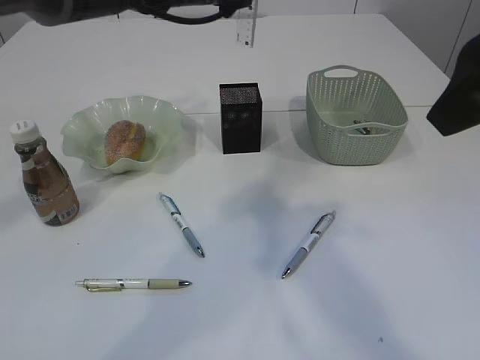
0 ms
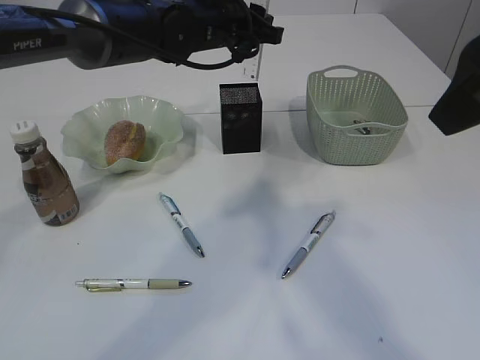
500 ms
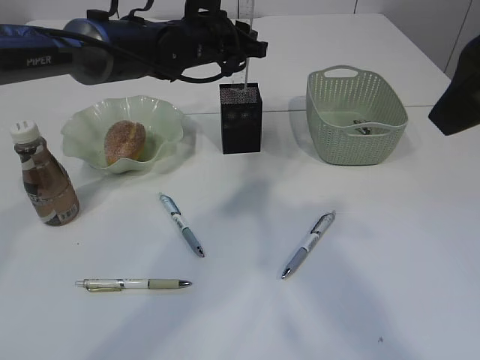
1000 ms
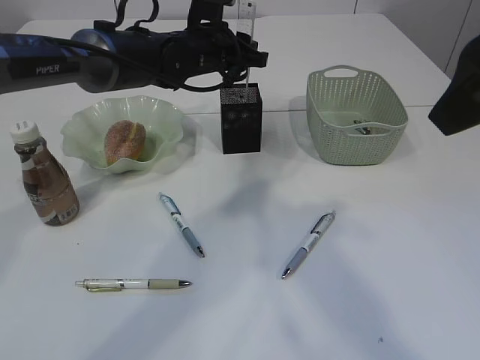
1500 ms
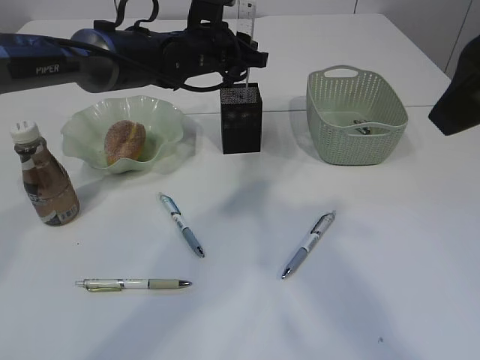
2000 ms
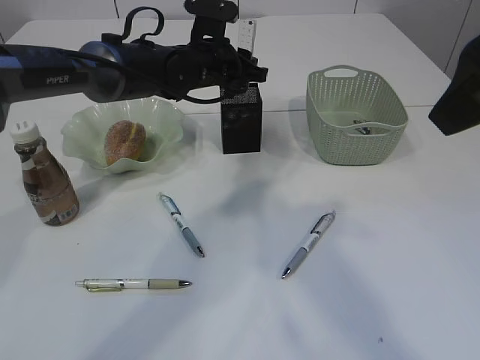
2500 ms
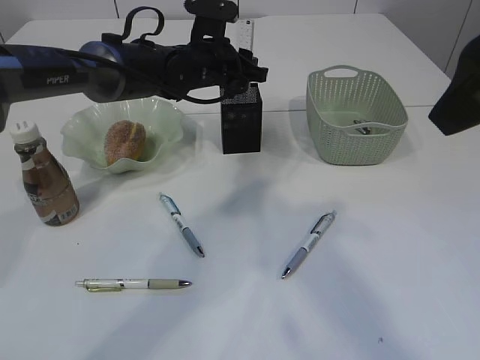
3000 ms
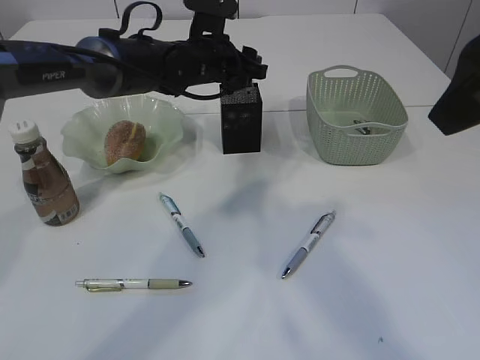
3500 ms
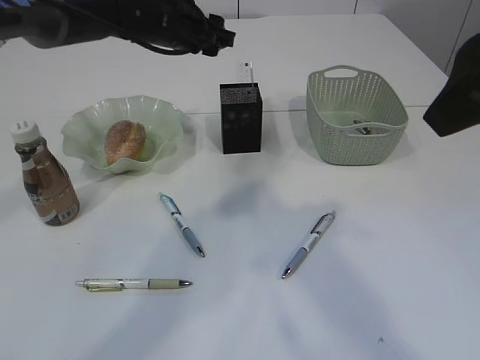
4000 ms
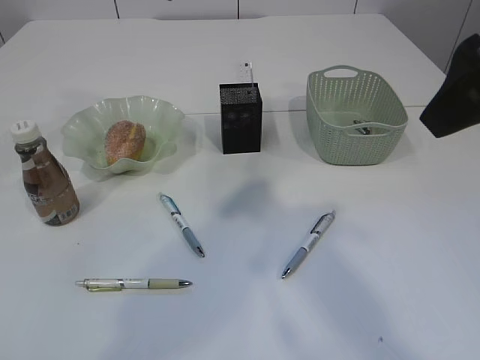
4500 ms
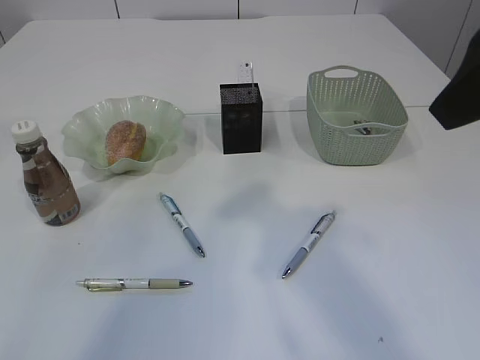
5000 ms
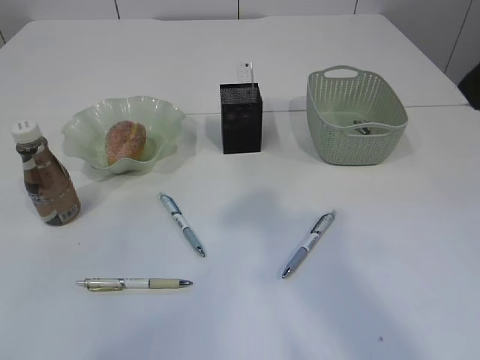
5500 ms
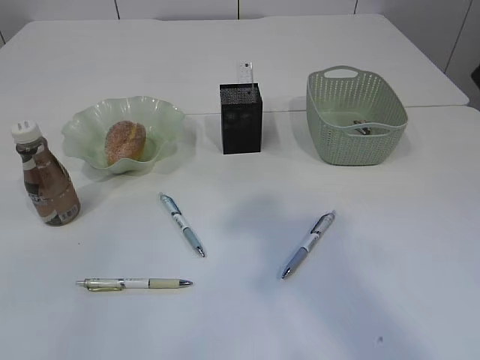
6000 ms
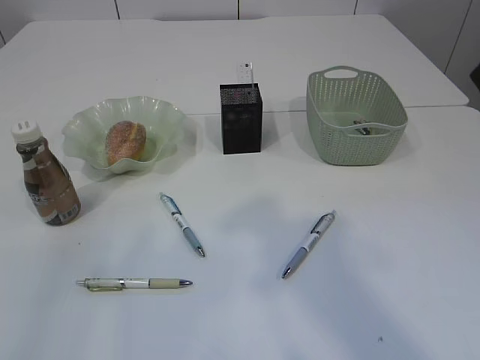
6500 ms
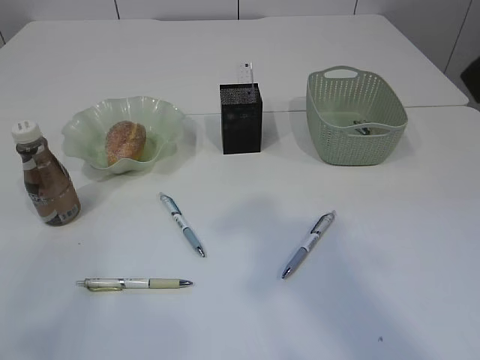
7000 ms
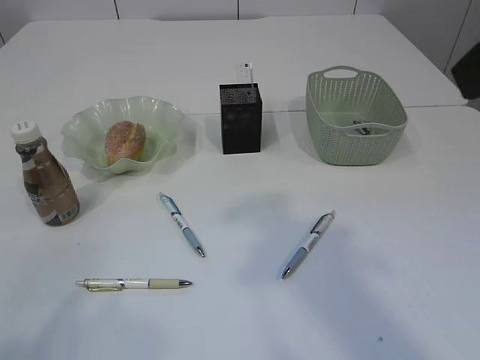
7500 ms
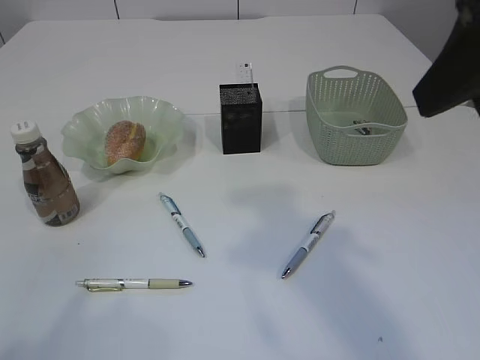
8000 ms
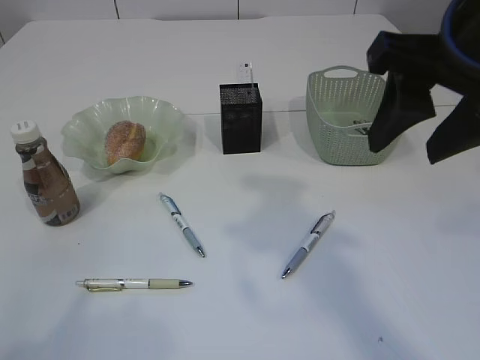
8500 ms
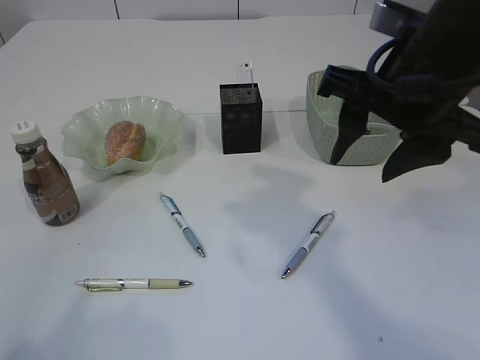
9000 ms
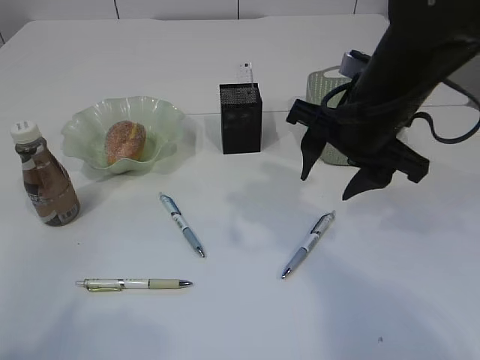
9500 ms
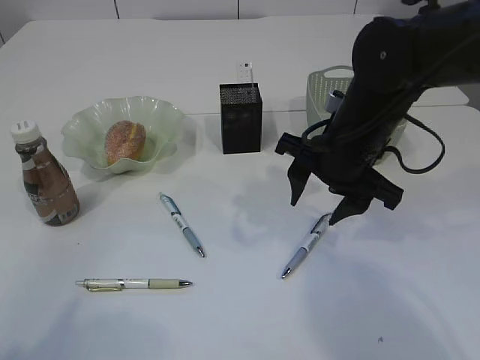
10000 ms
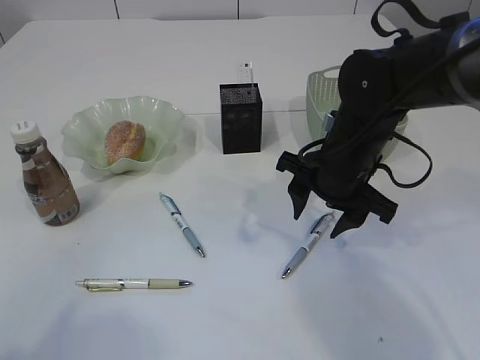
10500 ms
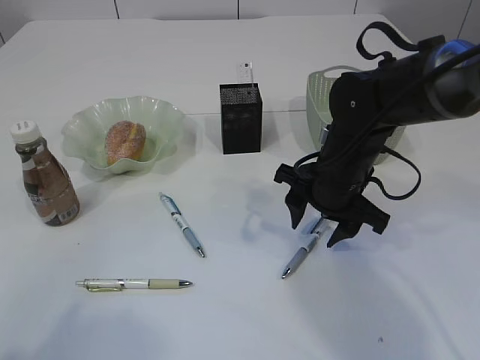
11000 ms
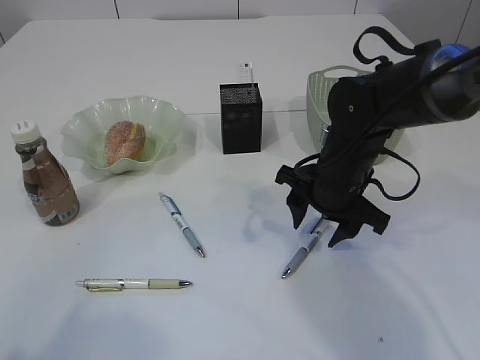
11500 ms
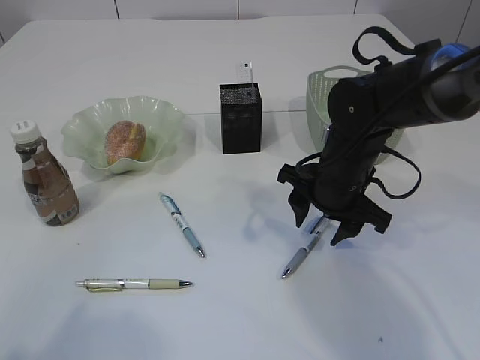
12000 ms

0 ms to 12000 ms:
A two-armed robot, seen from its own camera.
Step, 0 ms to 3500 ms: Place the ruler into the pen holder.
0 ms to 2000 ms: The left gripper heads downward, covering roughly 10 cm.
2000 ms to 4000 ms: The left gripper shifts by some 5 cm, and opens its fingers.
4000 ms to 6000 ms: The left gripper is displaced backward, upward and to the left by some 40 cm; the right gripper moves approximately 5 cm.
8000 ms to 10000 ms: The right gripper moves downward and forward, about 25 cm.
10000 ms to 12000 ms: The right gripper moves downward, some 5 cm.

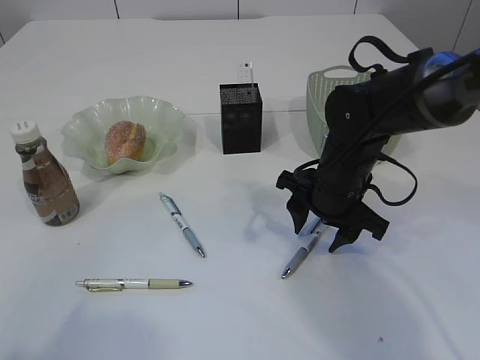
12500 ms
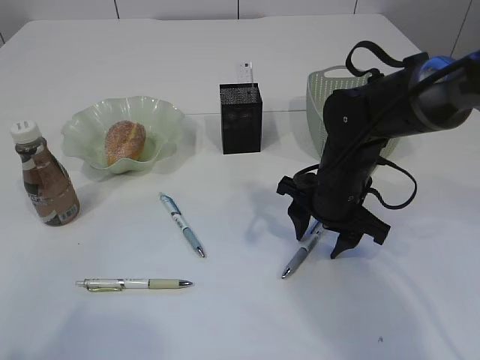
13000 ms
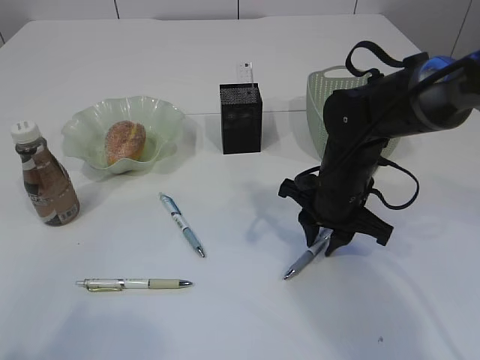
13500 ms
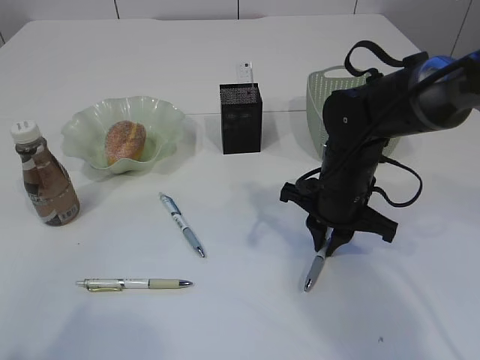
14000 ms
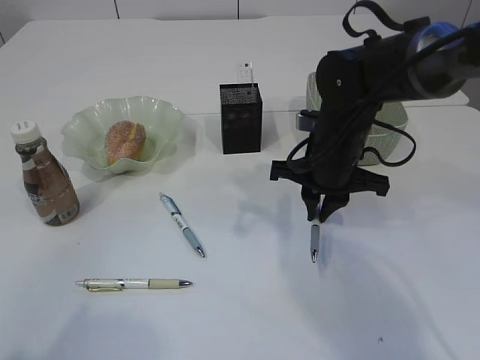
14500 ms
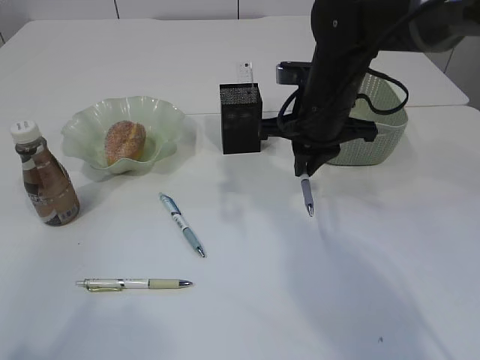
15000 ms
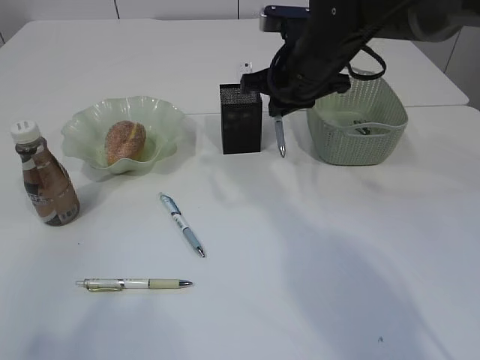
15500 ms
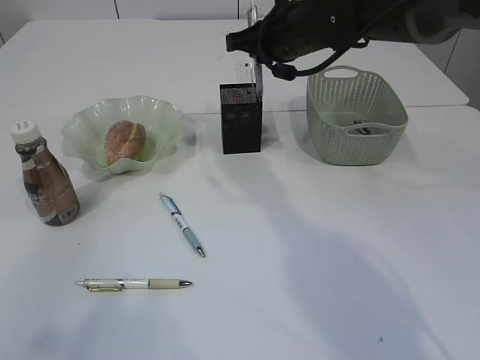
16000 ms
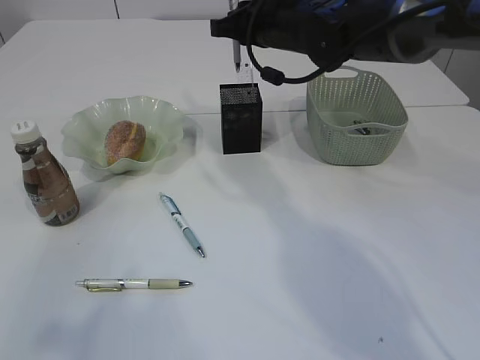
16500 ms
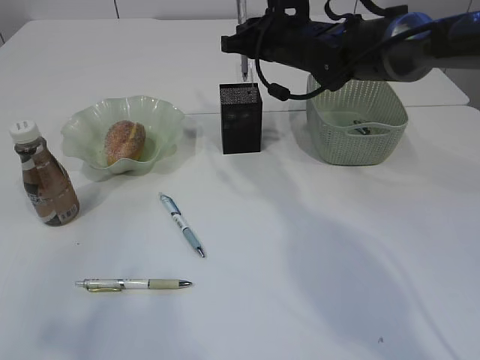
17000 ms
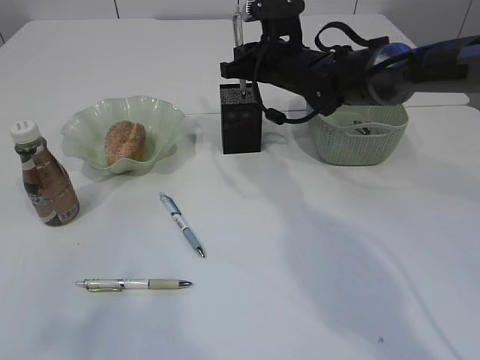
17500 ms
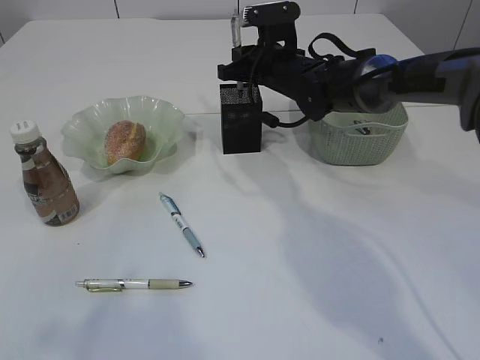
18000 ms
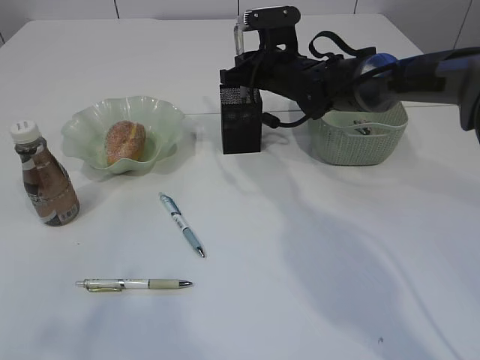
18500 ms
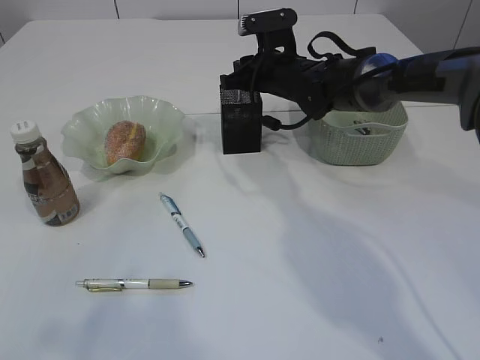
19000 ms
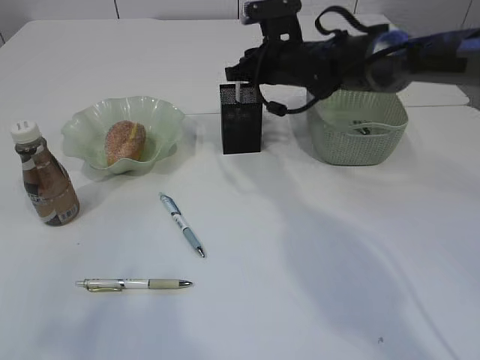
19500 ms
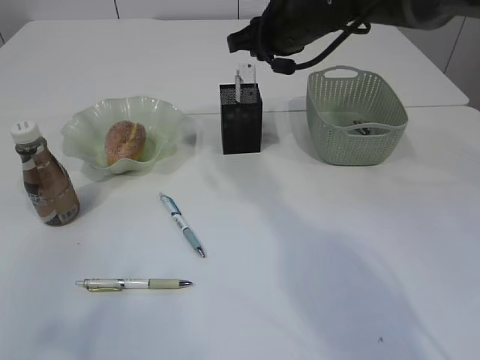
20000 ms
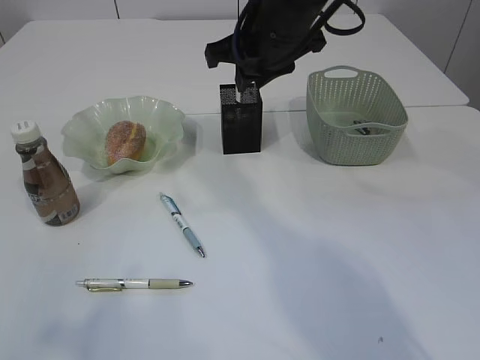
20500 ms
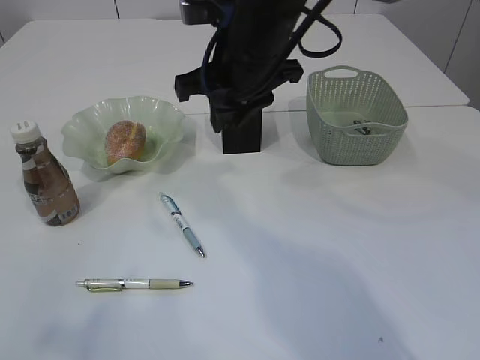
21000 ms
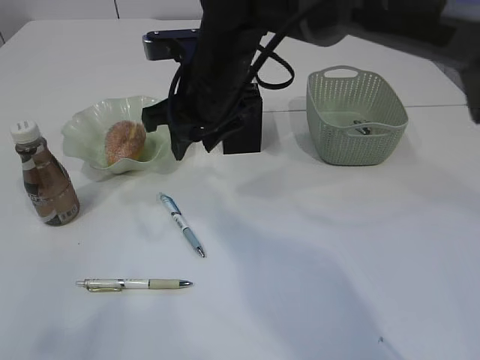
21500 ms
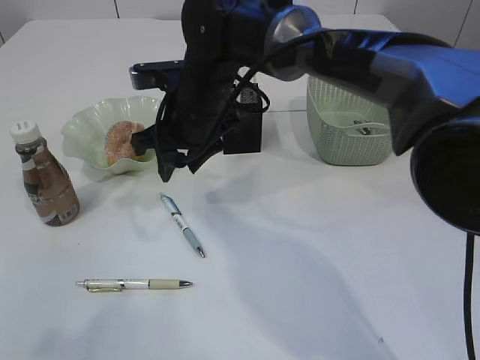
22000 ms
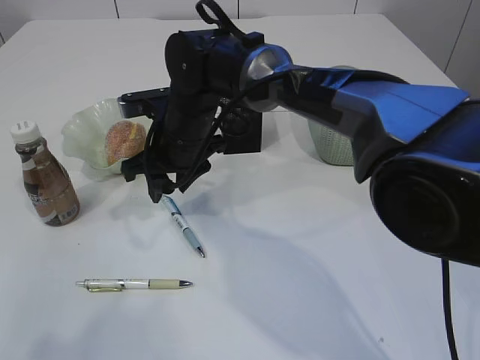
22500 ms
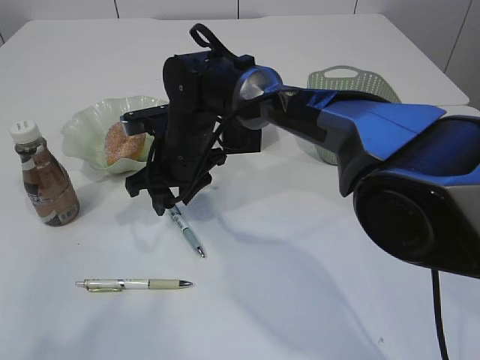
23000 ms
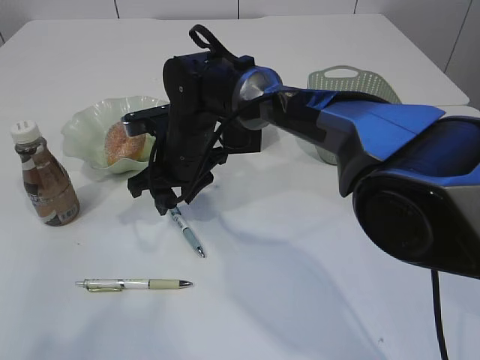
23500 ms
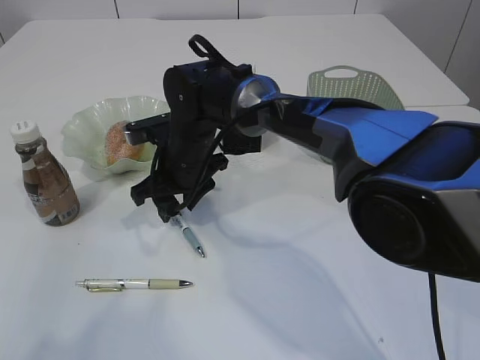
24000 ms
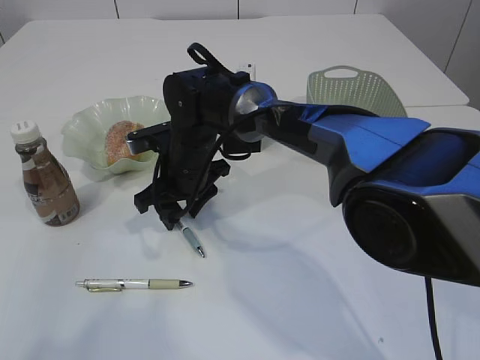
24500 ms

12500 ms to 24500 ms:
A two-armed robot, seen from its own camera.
Step, 12500 ms to 15000 ms: Pick up the pen with right arm.
Step, 15500 ms to 19500 ms: Place the pen into the pen holder.
12500 ms to 14500 ms: The right gripper closes.
14500 ms to 16500 ms: The right gripper is displaced upward and forward by approximately 15 cm.
16500 ms to 18500 ms: The right gripper travels downward by roughly 10 cm.
18500 ms to 20500 ms: The right gripper is displaced upward and backward by approximately 15 cm.
20500 ms to 22500 ms: The right gripper travels downward and to the left by approximately 15 cm.
22500 ms to 24500 ms: The right gripper goes about 5 cm downward.

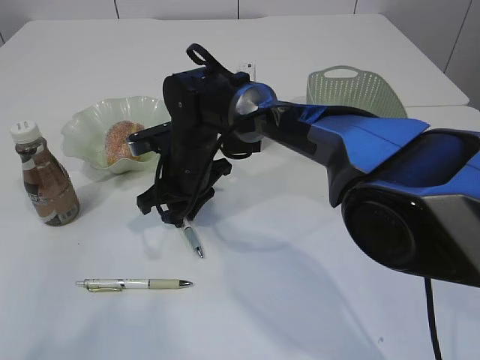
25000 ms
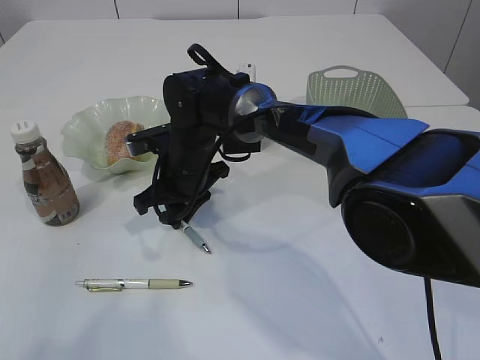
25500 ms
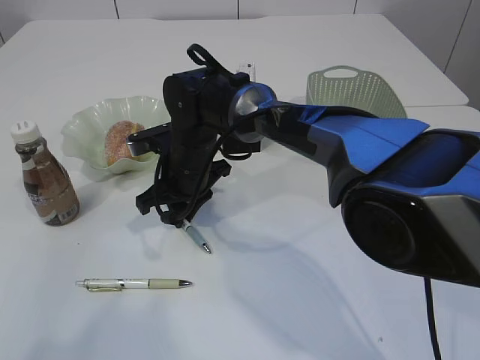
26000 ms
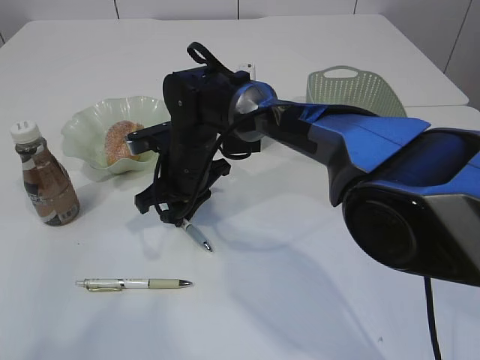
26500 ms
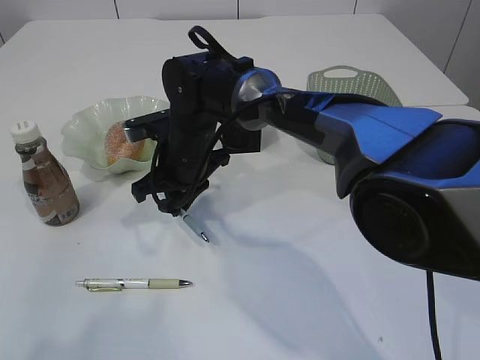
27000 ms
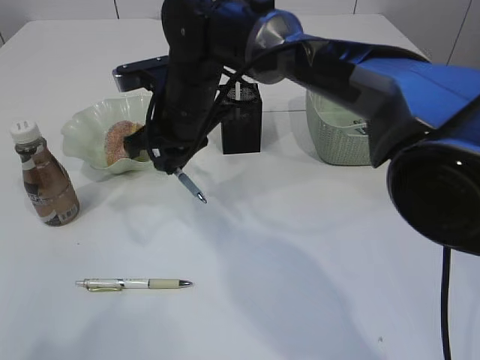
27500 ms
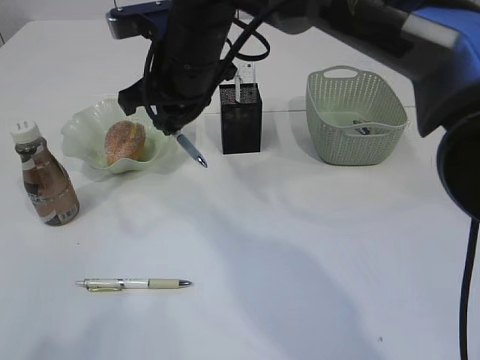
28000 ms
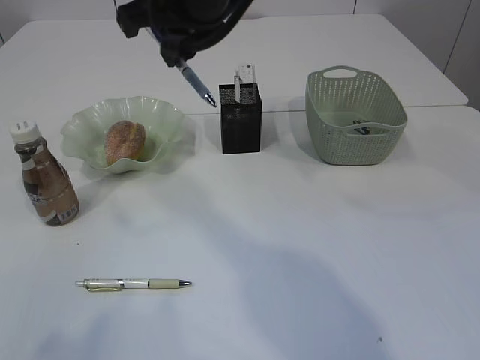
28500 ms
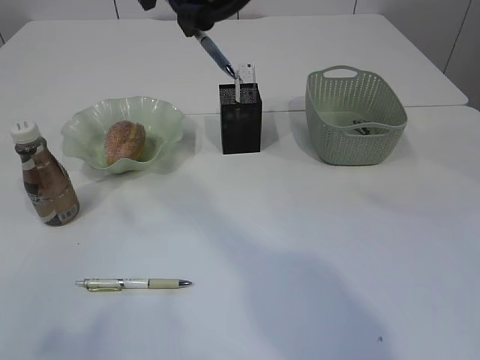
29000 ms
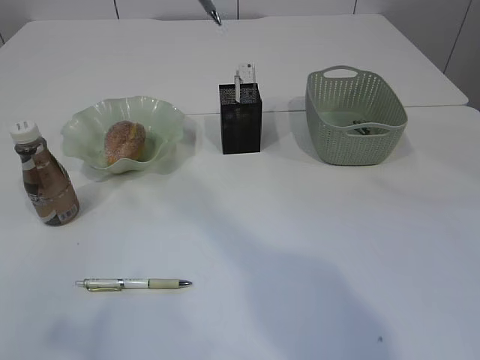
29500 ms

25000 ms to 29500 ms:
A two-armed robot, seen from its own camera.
Step, 25000 ms to 27000 ms: Pick up the pen with right arm.
25000 ms to 27000 ms: The grippers stay close to where they were, moving slightly.
27000 ms to 29500 ms: The right gripper heads upward, covering some 25 cm.
